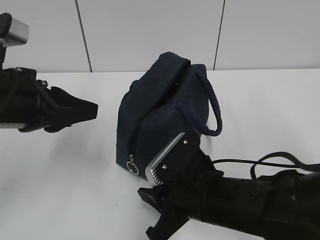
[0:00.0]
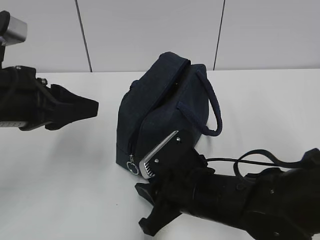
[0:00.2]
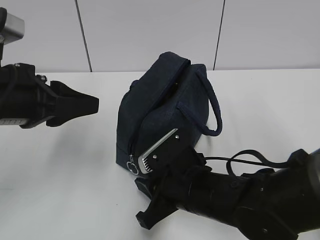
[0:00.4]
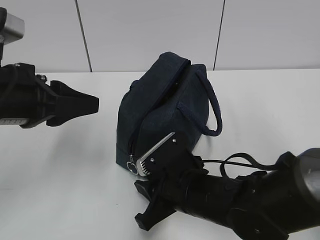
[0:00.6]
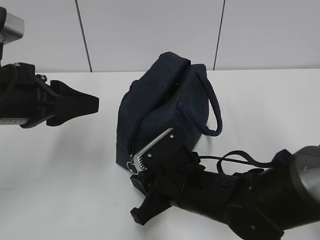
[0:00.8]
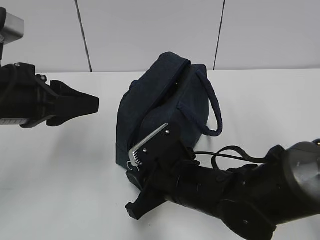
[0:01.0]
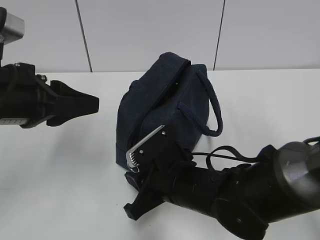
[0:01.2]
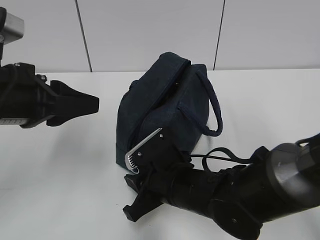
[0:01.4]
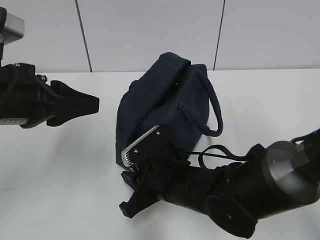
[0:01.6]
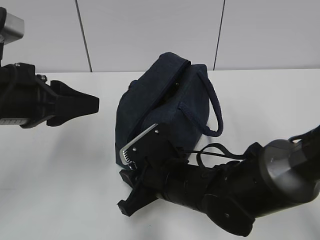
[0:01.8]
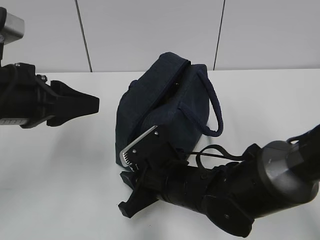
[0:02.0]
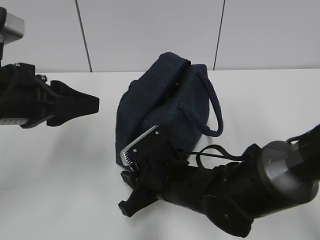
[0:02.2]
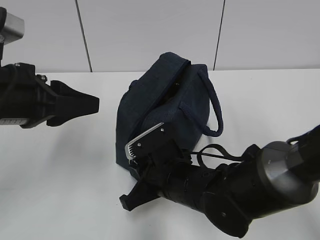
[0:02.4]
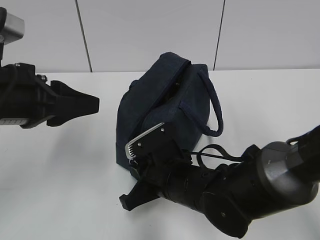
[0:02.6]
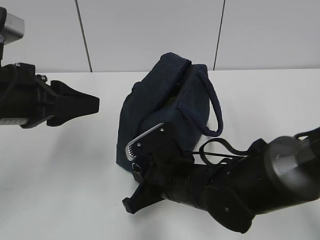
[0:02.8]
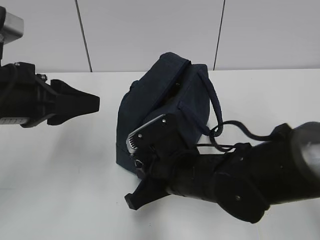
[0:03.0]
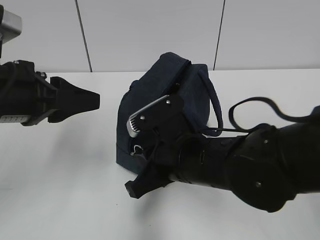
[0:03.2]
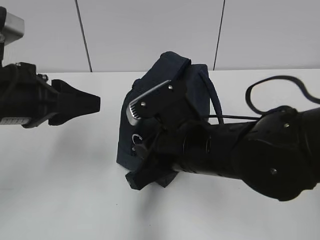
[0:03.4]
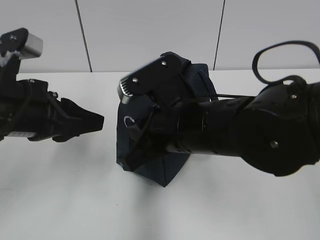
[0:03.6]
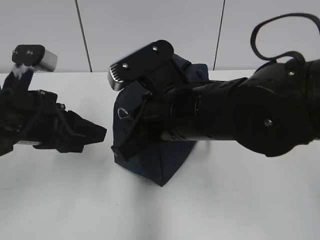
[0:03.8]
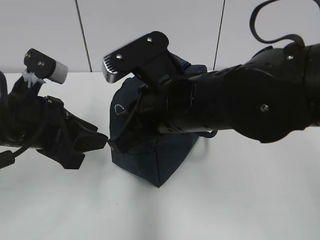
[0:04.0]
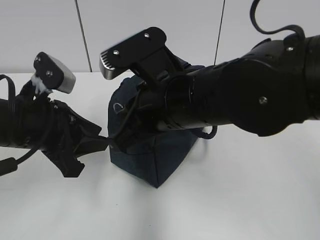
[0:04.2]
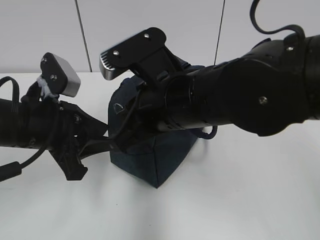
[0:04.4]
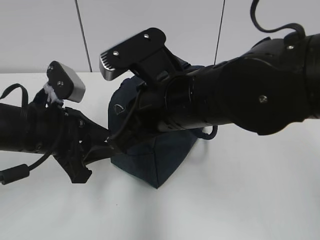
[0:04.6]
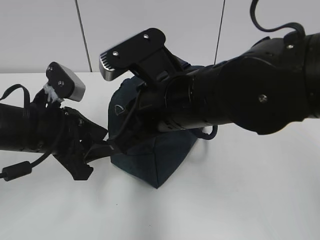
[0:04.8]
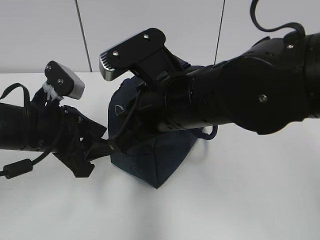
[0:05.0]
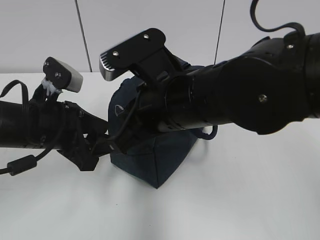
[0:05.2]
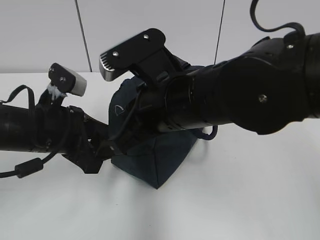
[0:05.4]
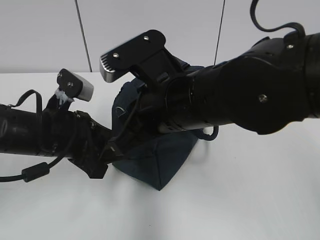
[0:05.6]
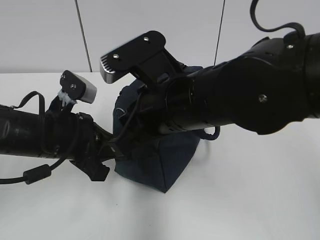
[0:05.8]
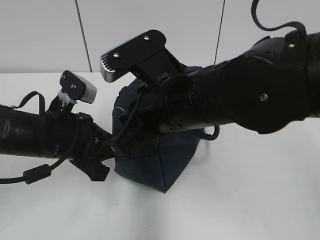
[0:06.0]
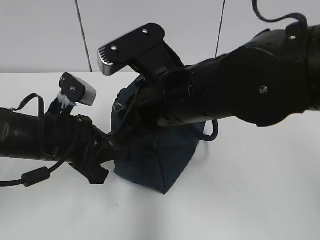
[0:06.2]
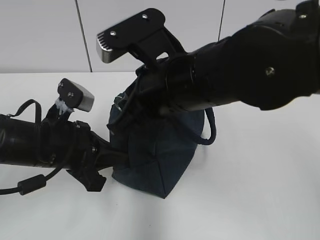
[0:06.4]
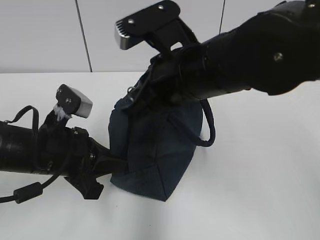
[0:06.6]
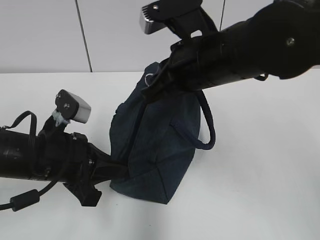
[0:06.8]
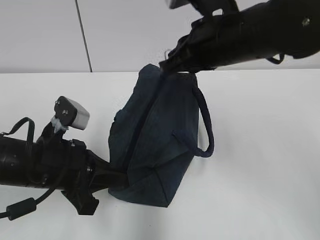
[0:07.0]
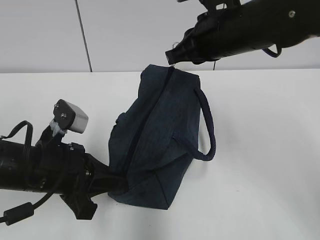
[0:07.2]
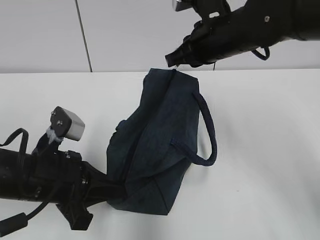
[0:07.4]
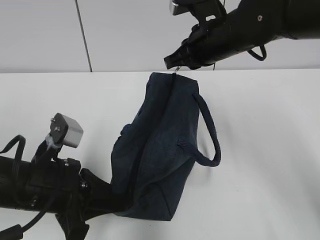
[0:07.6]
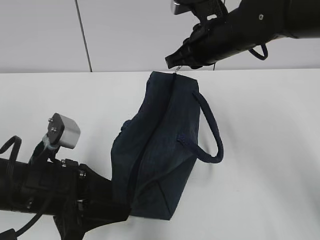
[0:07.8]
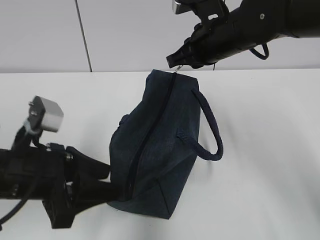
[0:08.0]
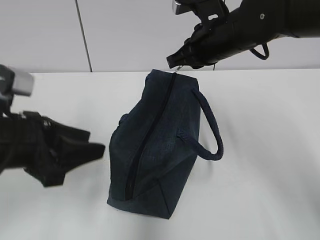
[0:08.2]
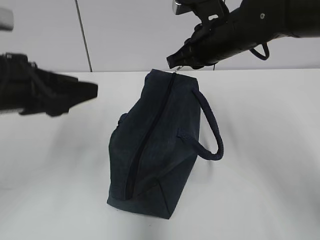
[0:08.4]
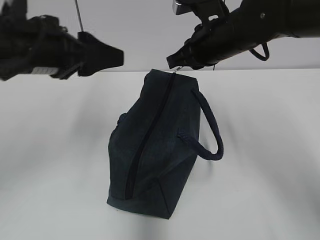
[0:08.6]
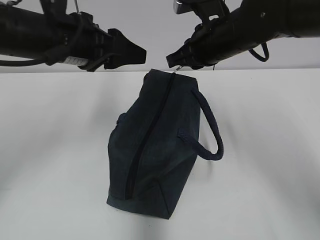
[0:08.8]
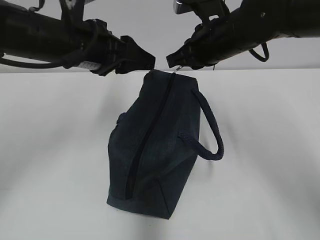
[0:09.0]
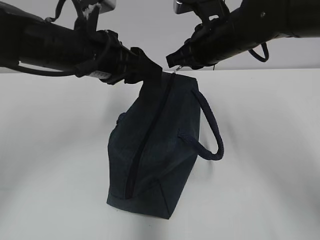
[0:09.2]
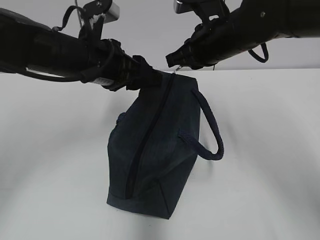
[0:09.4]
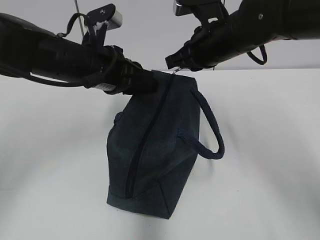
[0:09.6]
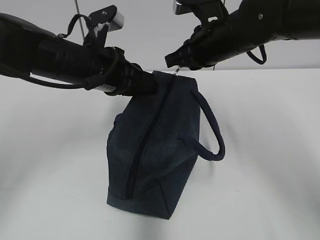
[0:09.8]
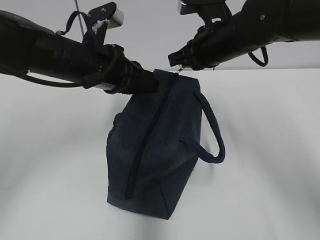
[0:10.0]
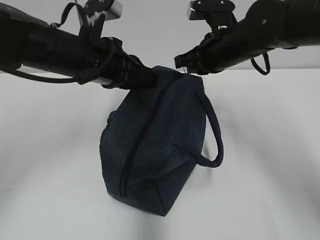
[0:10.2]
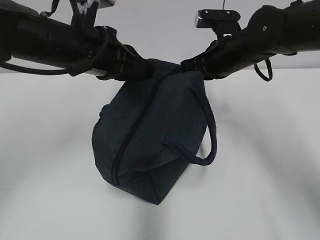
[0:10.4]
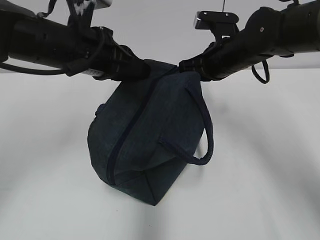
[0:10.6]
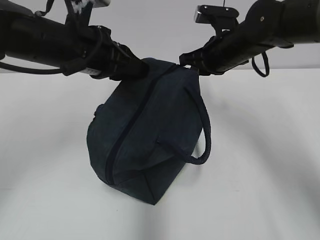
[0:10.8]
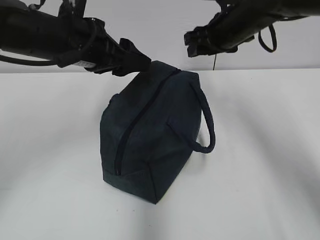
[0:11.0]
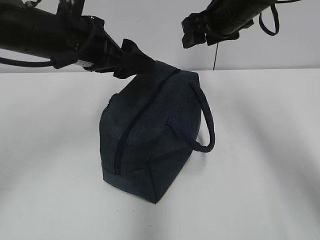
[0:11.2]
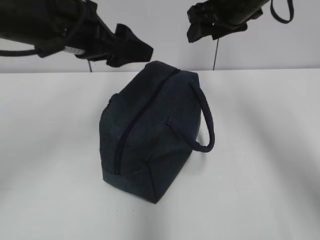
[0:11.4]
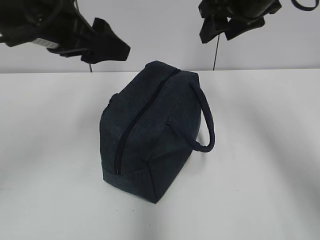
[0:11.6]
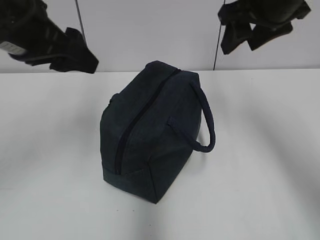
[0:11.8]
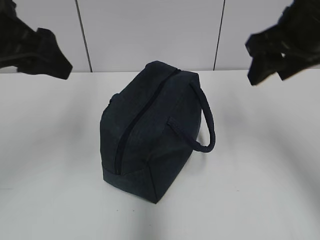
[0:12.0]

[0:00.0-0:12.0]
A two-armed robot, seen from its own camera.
0:00.0 to 0:01.6: The right gripper moves about 5 cm.
0:01.6 to 0:03.0: The right gripper closes up.
0:03.0 to 0:04.4: The right gripper travels upward by roughly 10 cm, while the left gripper is displaced downward by roughly 5 cm.
0:04.4 to 0:06.0: The left gripper closes its fingers.
0:06.0 to 0:07.6: The left gripper moves backward, about 5 cm. The right gripper goes approximately 15 cm forward and to the right.
0:07.6 to 0:09.0: The left gripper heads forward and upward, covering roughly 20 cm, and opens.
0:09.0 to 0:10.4: The left gripper closes its fingers, while the right gripper shifts by approximately 5 cm.
0:10.4 to 0:12.0: The left gripper shifts about 15 cm to the left, upward and backward, and opens. The right gripper heads backward and upward, covering approximately 15 cm, and opens up.

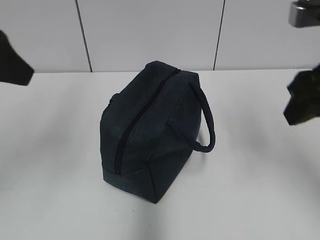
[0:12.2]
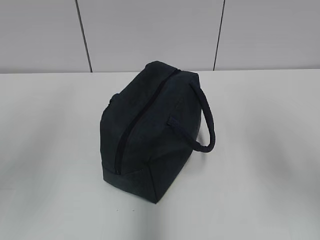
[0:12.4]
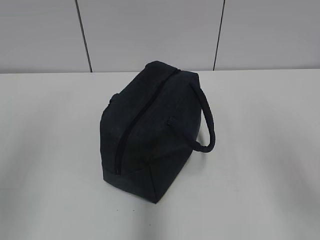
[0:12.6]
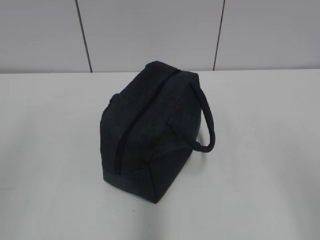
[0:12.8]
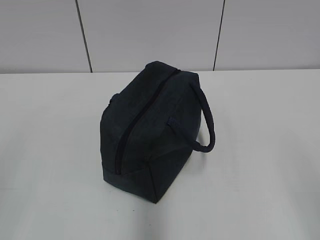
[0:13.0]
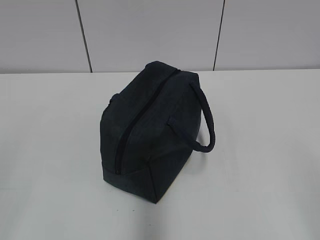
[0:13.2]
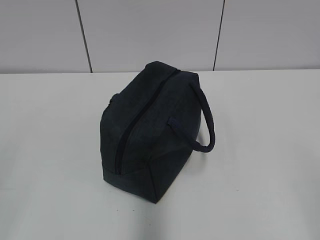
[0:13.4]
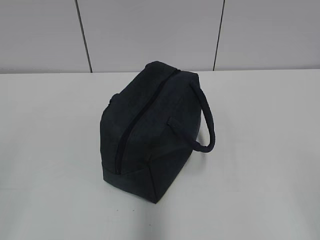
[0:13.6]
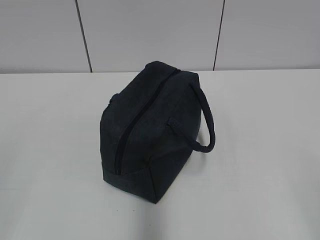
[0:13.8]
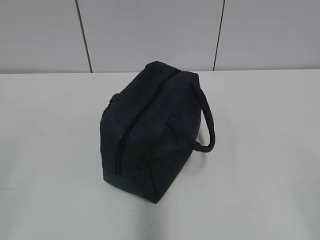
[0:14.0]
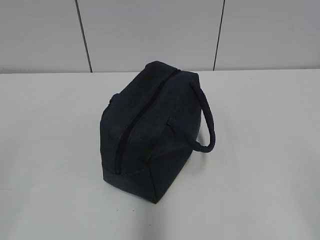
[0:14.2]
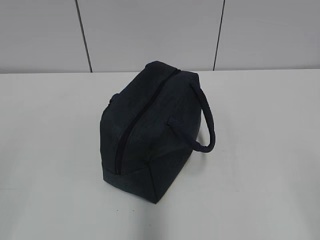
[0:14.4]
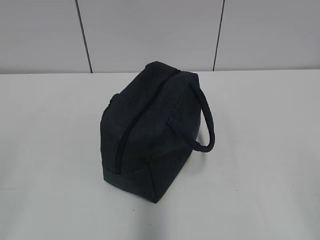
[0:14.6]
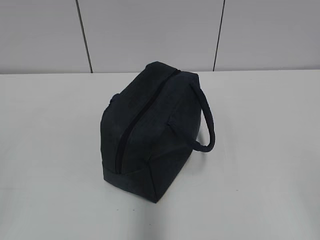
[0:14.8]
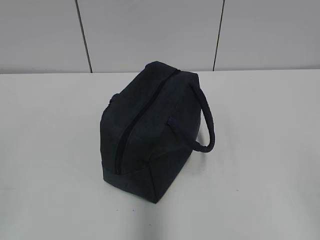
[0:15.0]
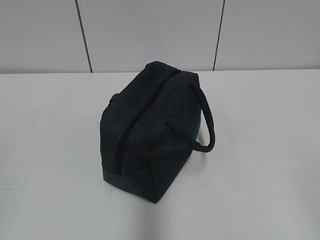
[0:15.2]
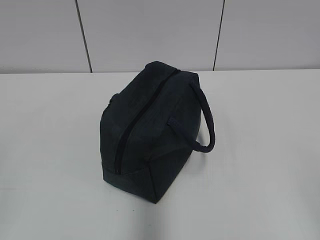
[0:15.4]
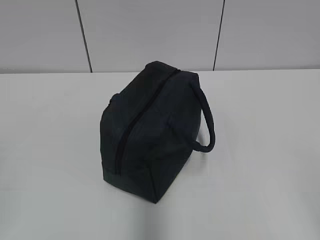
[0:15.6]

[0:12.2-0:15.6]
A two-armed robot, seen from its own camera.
0:12.2 to 0:13.8: The right gripper is displaced backward by about 25 cm; the left gripper goes approximately 20 cm backward, downward and to the left.
